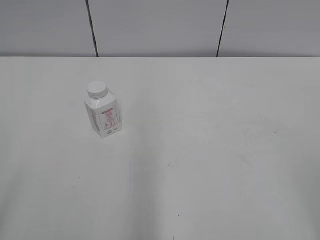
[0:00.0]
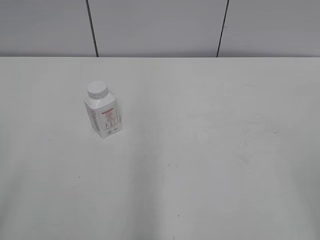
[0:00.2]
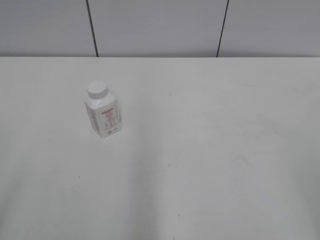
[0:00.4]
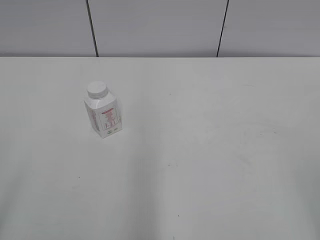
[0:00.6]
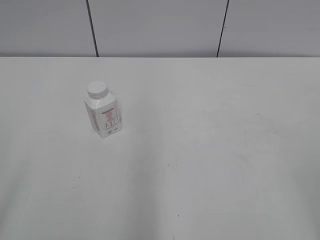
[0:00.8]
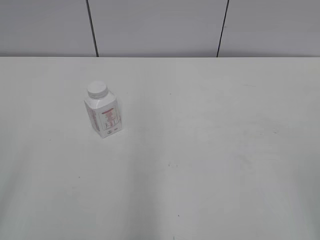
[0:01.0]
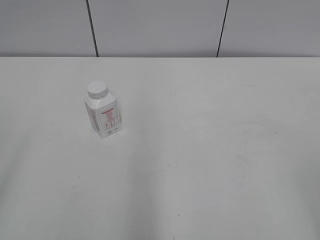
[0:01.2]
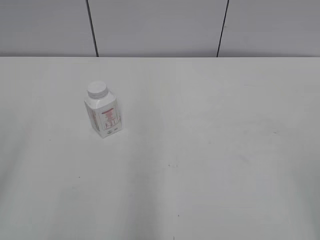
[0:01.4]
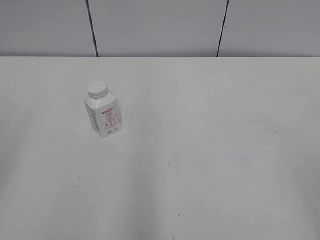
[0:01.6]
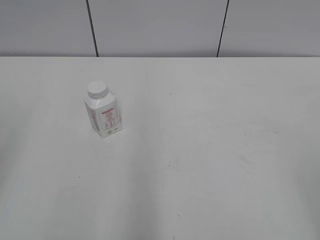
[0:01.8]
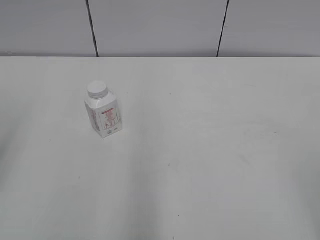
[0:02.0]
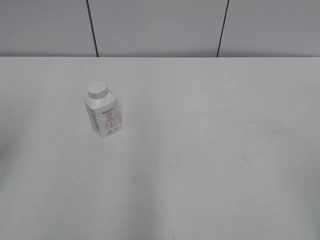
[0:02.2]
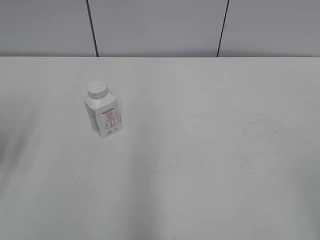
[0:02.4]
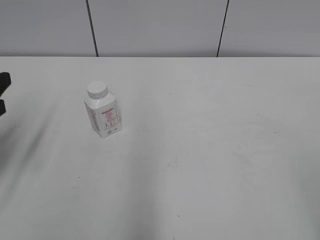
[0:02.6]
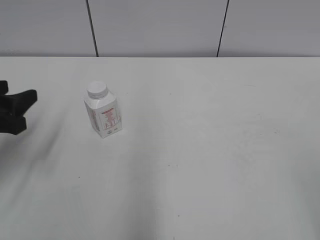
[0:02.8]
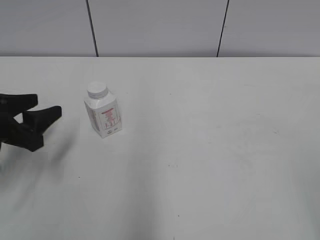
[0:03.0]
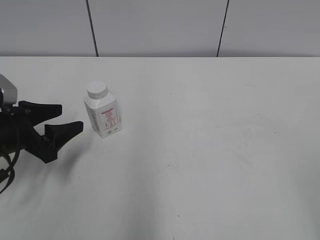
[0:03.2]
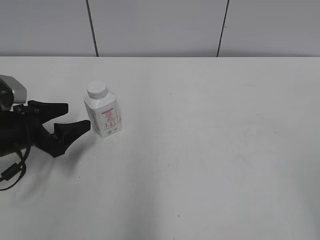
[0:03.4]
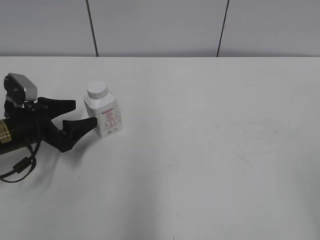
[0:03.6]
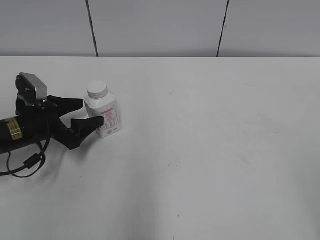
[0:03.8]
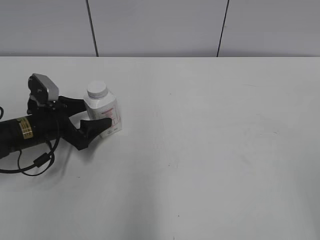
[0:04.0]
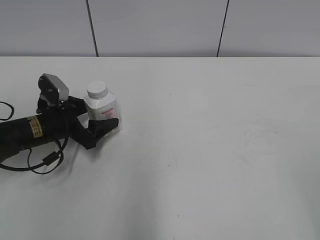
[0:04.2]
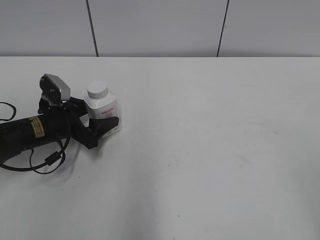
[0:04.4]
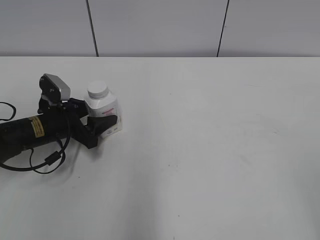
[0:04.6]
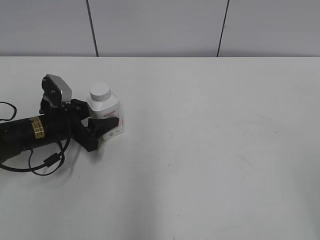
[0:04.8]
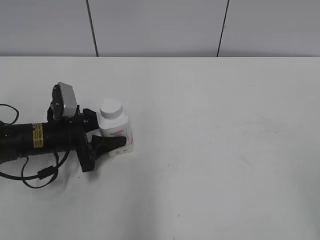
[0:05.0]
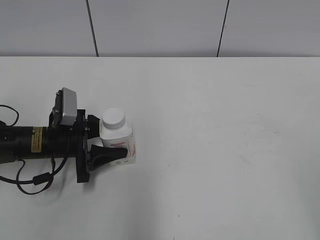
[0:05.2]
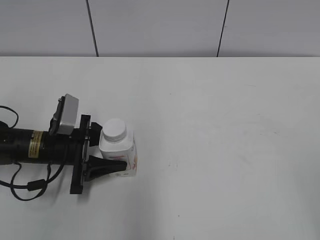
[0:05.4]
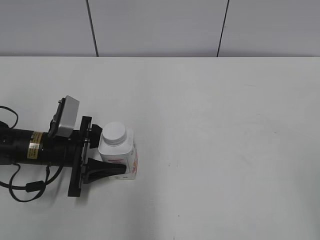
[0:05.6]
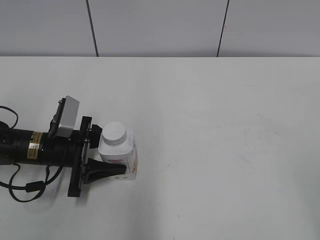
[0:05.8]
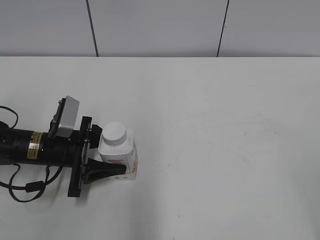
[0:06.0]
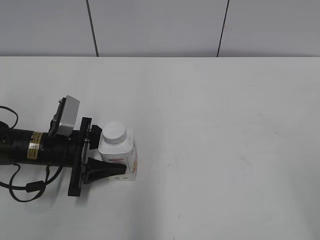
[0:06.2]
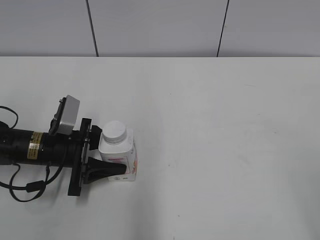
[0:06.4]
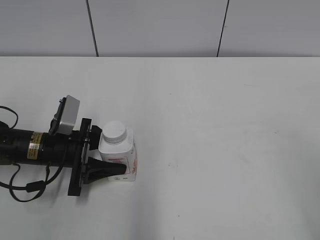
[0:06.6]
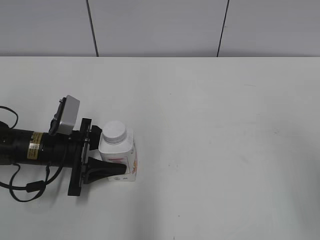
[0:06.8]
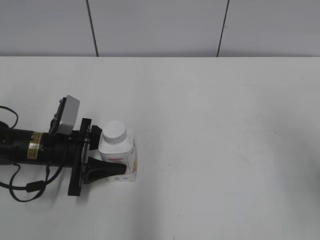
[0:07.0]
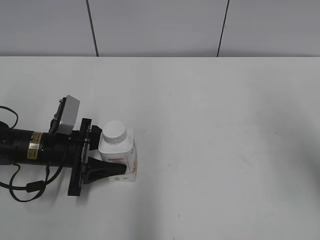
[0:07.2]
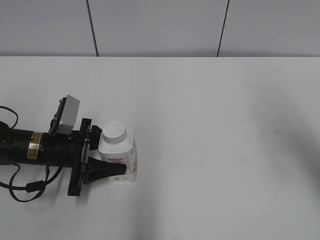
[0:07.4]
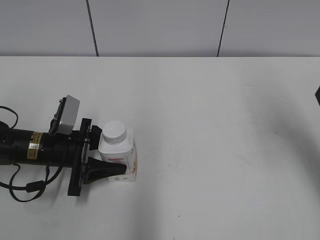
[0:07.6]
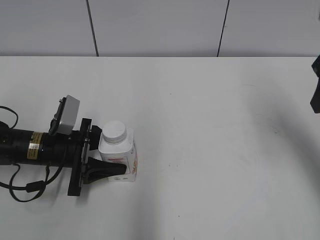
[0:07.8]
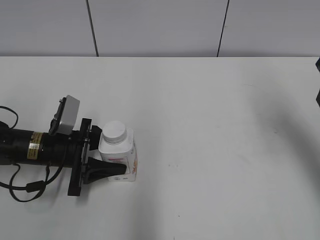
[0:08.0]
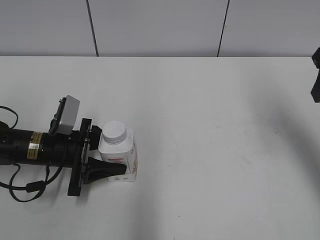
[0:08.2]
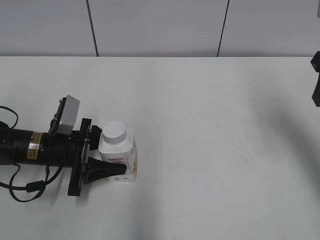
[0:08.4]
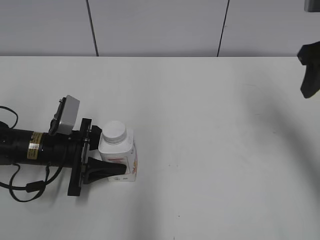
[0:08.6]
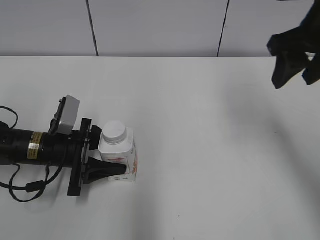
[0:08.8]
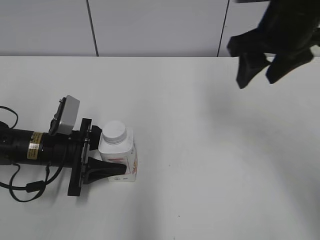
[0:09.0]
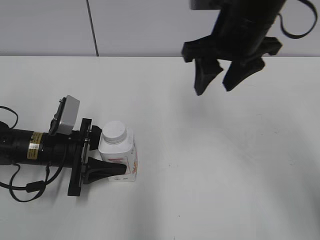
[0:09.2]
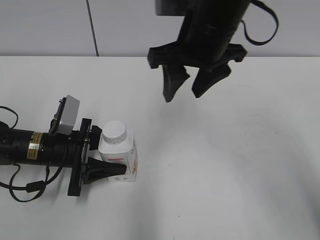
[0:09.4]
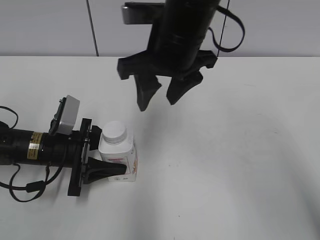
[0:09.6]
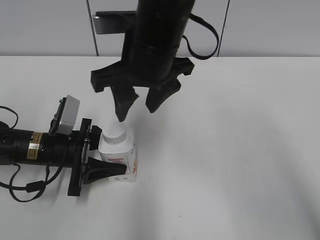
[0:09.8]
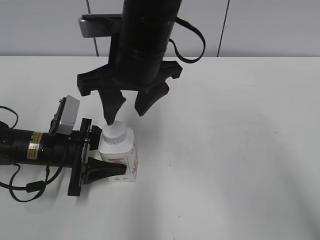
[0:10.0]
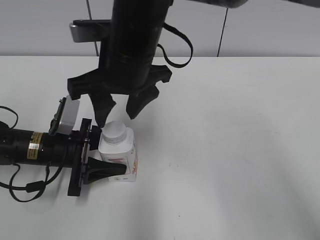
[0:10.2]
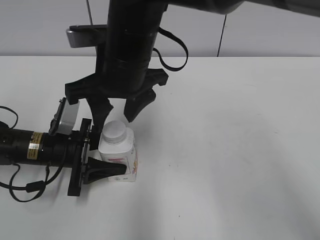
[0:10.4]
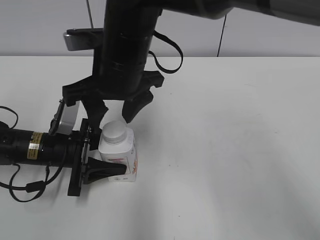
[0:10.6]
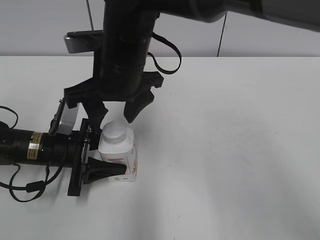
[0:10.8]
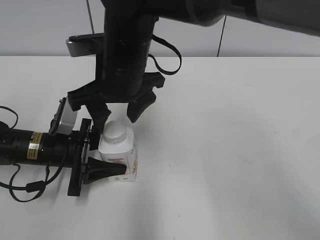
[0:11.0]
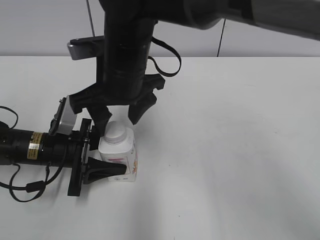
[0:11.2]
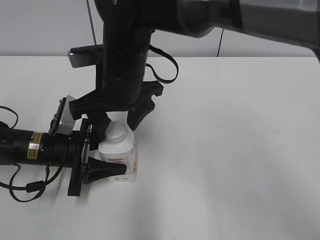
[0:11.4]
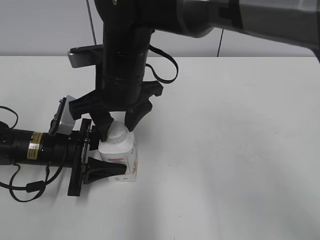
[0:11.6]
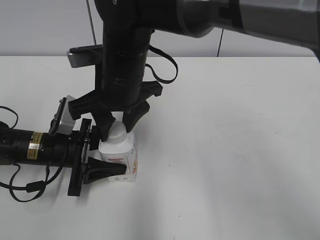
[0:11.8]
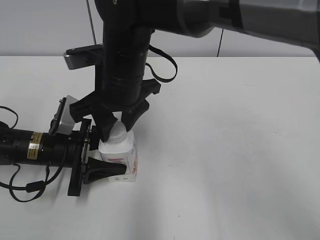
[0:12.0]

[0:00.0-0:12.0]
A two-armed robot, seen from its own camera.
Step, 0:00.0 to 0:05.6: Grasp the bottle and move it to the center of the table with the left gripper.
0:01.6 to 0:03.0: The left gripper moves forward and downward, approximately 20 cm, and closes its fingers.
0:03.0 to 0:04.4: The left gripper travels forward, downward and to the right by about 15 cm, and opens up.
0:04.4 to 0:06.0: The left gripper shifts by about 5 cm, and closes up.
0:06.0 to 0:07.6: The right gripper travels forward by approximately 25 cm.
0:07.6 to 0:09.0: The right gripper shifts about 10 cm to the left and forward.
0:09.0 to 0:10.4: The right gripper heads to the left, covering roughly 20 cm.
0:10.4 to 0:12.0: The right gripper closes its fingers.

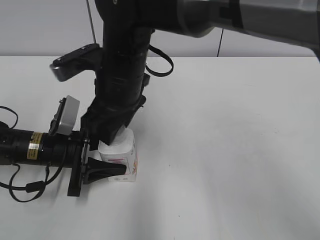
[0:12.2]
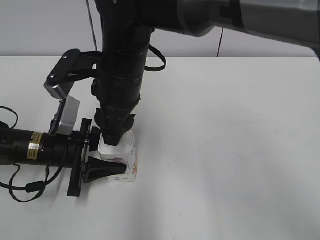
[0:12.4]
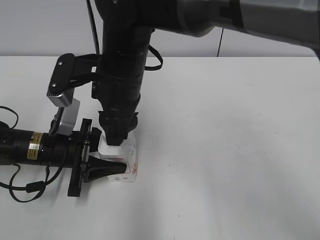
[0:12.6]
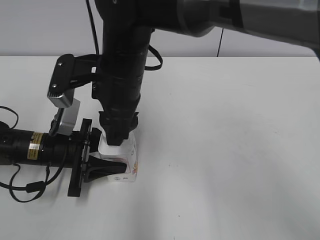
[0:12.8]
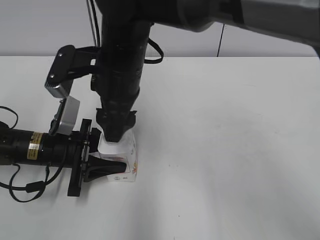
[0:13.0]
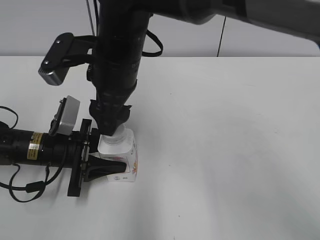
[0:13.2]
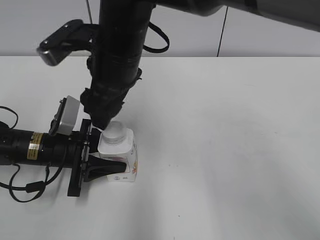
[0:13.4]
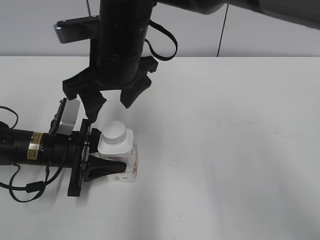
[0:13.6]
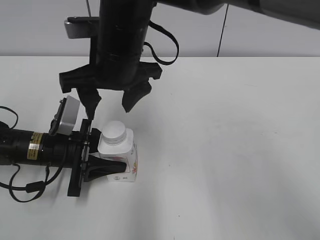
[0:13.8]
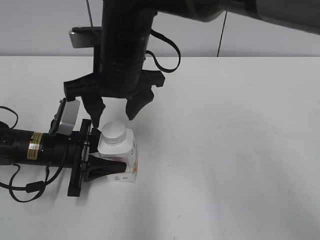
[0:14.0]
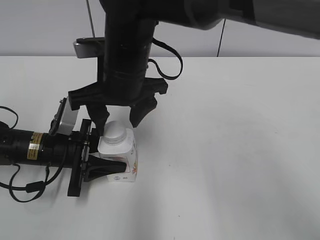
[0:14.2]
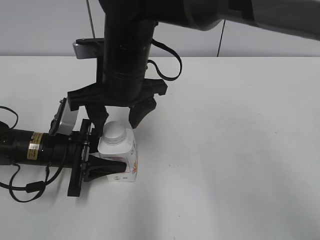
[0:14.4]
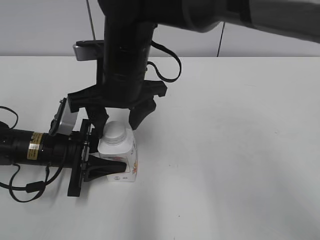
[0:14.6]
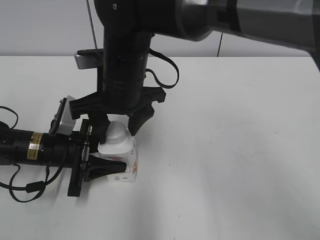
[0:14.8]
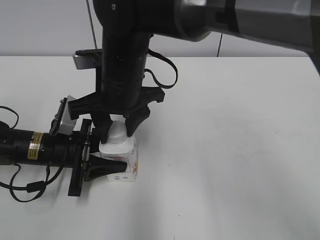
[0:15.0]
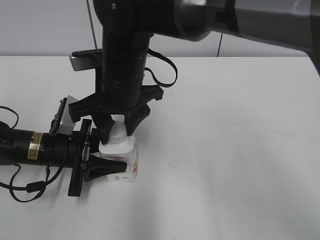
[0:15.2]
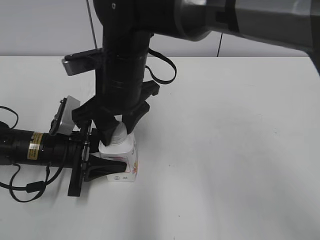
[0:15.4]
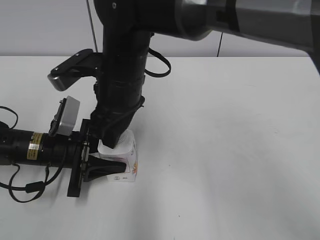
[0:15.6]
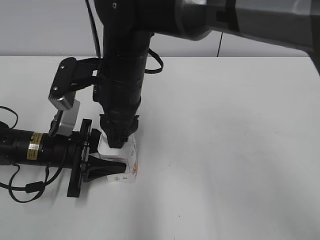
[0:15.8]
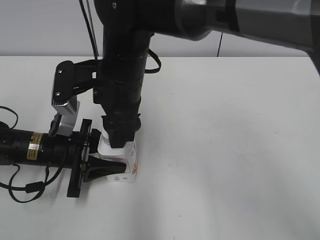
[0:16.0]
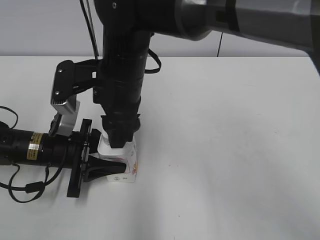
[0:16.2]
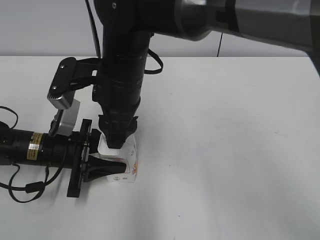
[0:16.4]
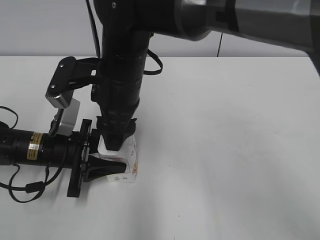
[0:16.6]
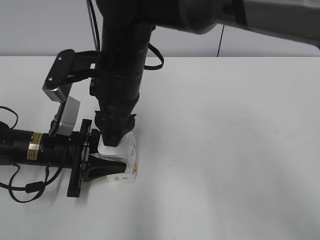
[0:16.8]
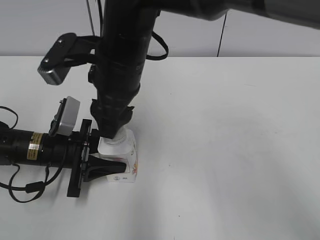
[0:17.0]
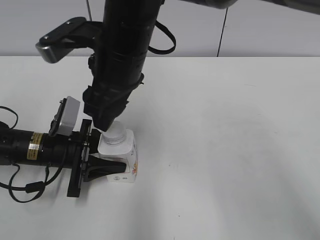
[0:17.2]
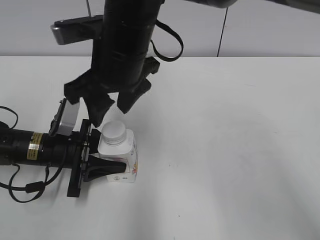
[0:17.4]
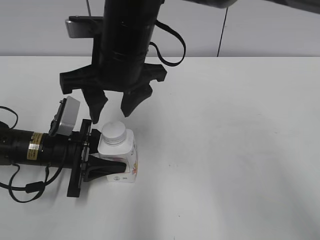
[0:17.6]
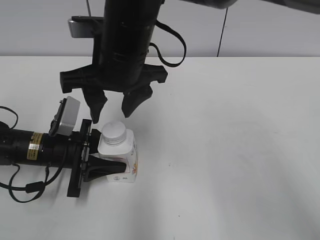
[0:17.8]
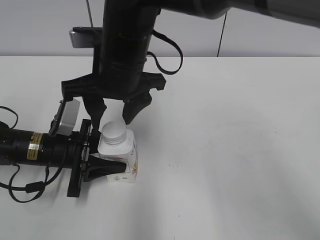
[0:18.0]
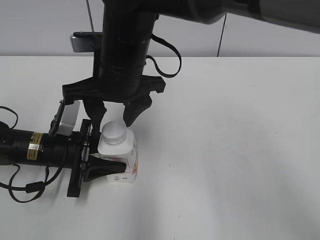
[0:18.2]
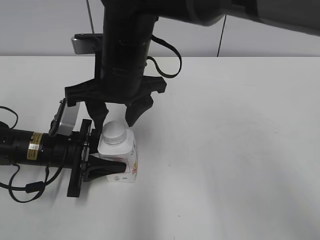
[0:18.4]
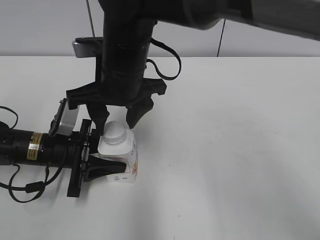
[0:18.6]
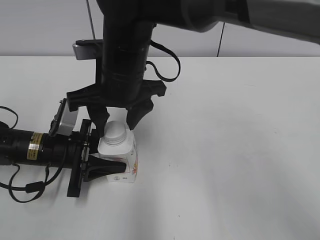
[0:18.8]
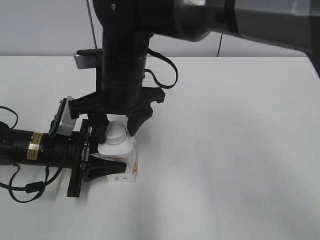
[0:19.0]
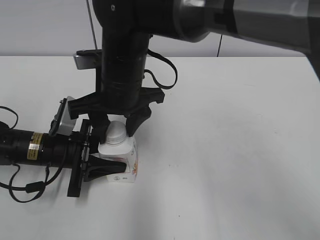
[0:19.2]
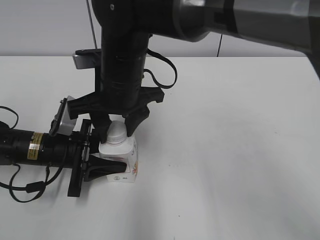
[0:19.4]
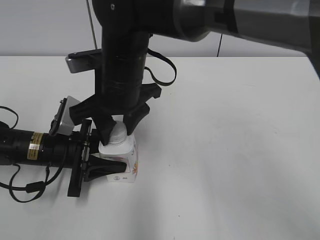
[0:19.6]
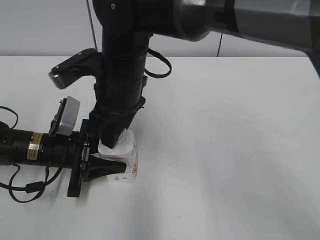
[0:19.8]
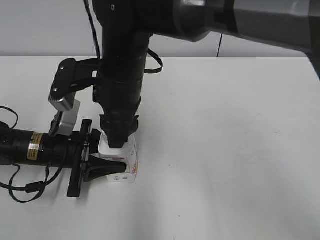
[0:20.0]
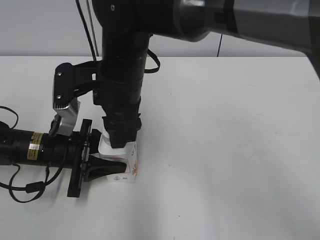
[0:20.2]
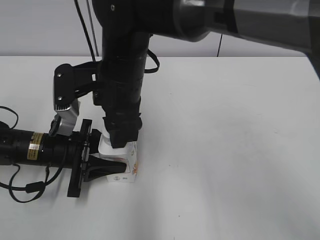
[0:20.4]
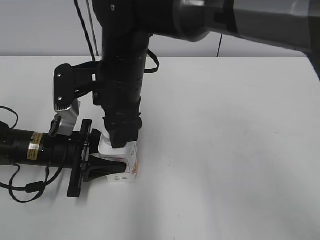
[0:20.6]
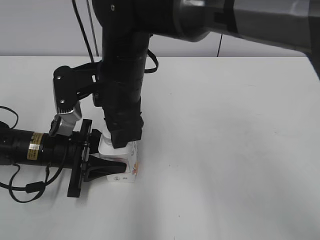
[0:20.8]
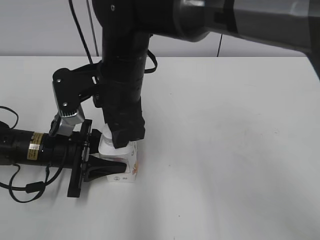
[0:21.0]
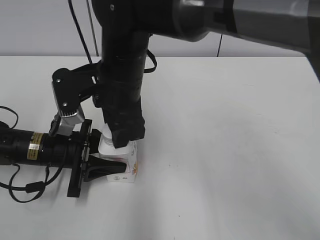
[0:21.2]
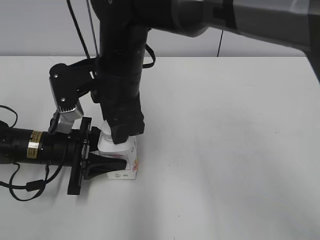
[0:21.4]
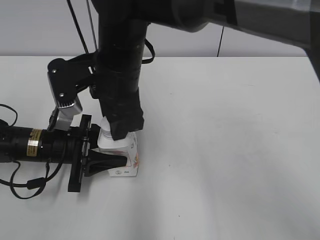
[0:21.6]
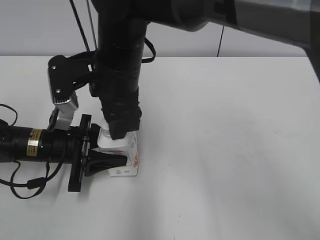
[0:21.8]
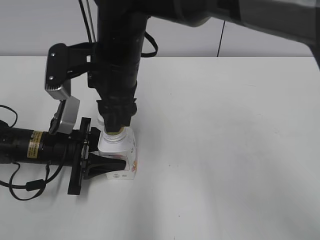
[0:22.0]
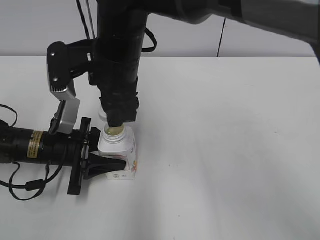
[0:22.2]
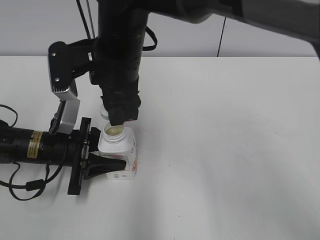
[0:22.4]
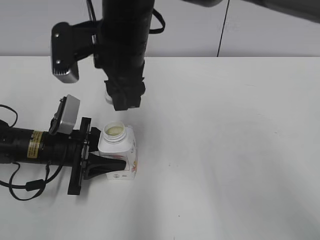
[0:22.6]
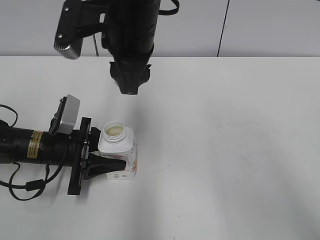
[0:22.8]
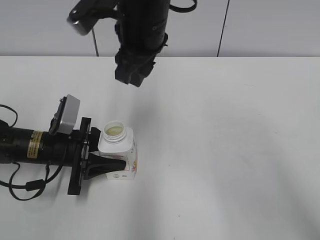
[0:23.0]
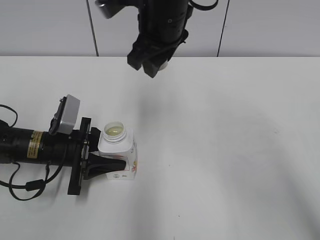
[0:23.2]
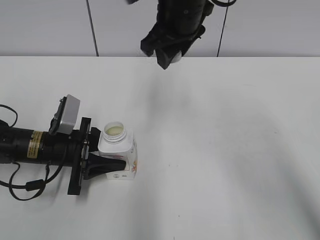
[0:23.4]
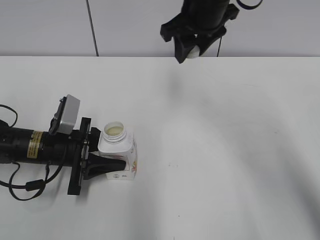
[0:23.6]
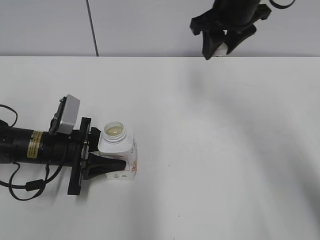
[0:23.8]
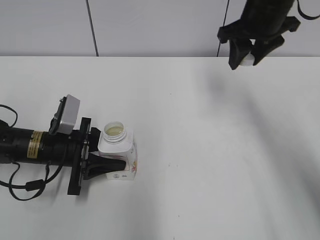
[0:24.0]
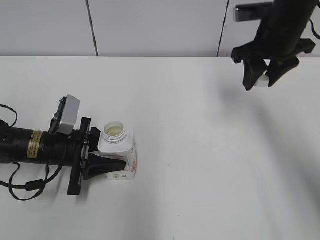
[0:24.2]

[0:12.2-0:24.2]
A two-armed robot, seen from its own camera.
Step, 0:12.2 to 0:22.0: Unscrew the bottle cap with the right gripper while holding the bottle with the left gripper.
0:12.2 to 0:13.8: The right gripper opens its fingers.
0:13.8 to 0:15.2: The right gripper closes.
0:15.2 to 0:16.6: The right gripper opens.
0:18.2 to 0:19.8: The right gripper closes its fingers.
0:22.6 to 0:24.2: The right gripper shifts approximately 25 cm to the right.
